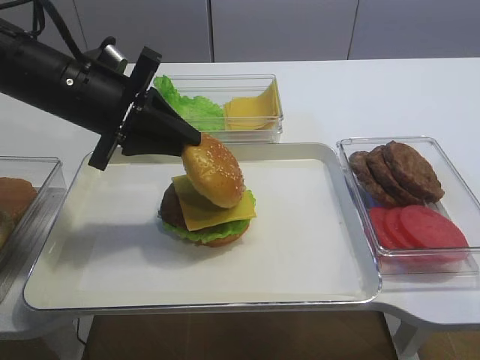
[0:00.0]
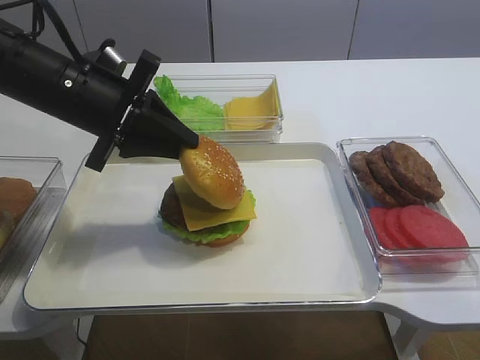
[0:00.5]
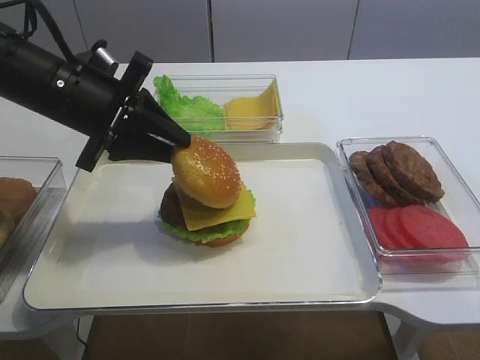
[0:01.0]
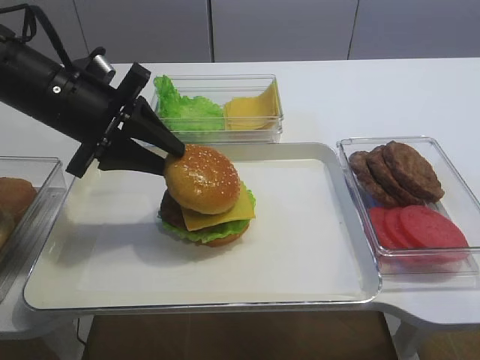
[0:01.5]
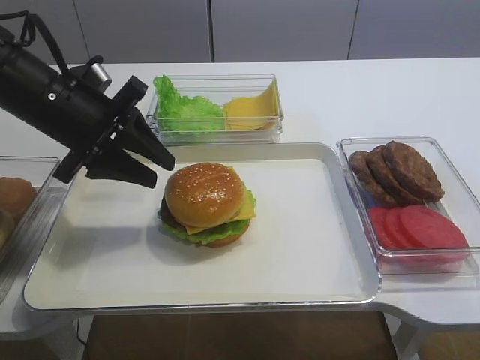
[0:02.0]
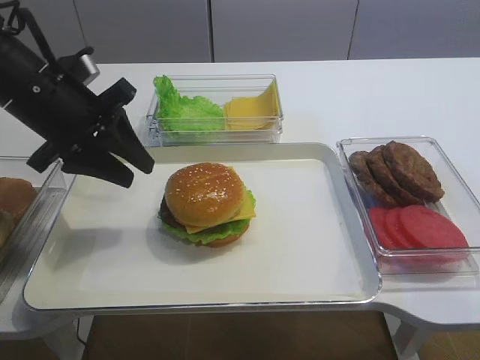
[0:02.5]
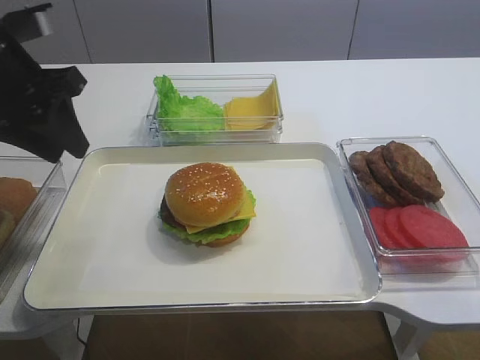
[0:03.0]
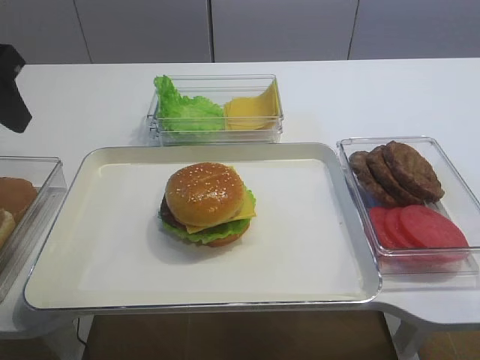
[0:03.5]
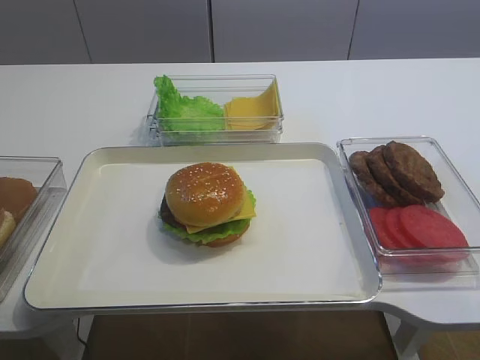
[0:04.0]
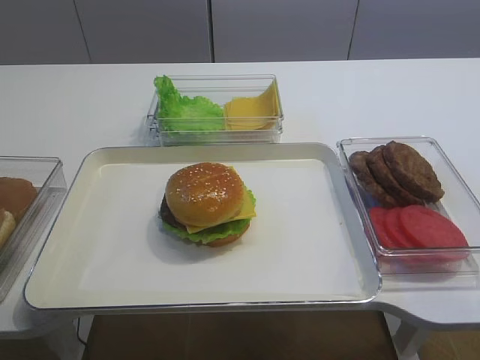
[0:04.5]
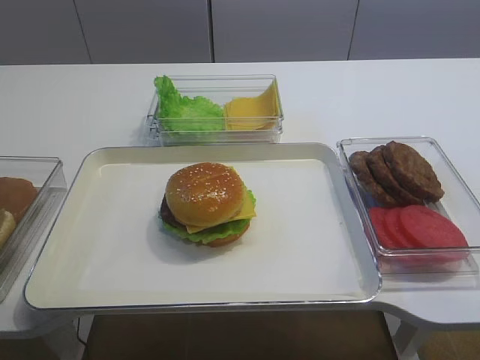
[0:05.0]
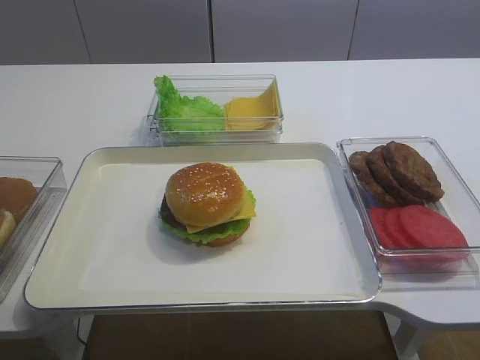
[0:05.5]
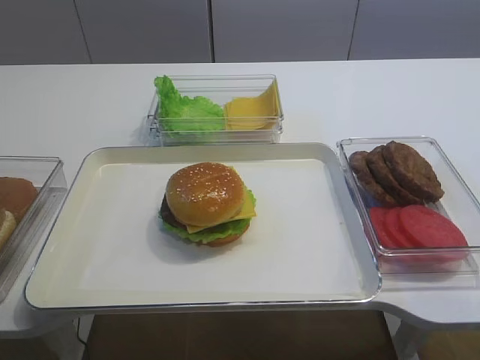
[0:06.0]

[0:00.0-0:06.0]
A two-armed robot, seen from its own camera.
Step, 0:00.0 to 0:02.0: Place the hamburger lid on the cheese slice with the left gripper.
0:00.0 to 0:02.0: The left gripper opens up.
0:02.0 to 0:04.0: The left gripper is displaced upward, backward and to the left by approximately 20 cm.
